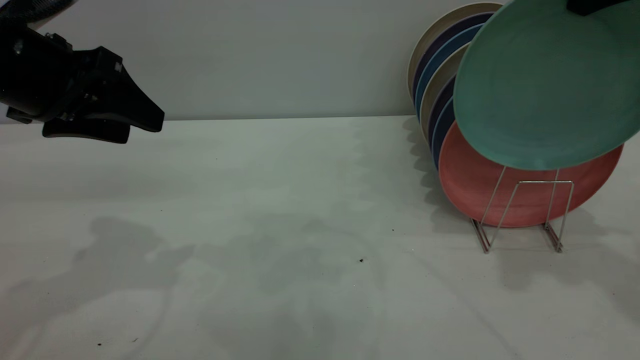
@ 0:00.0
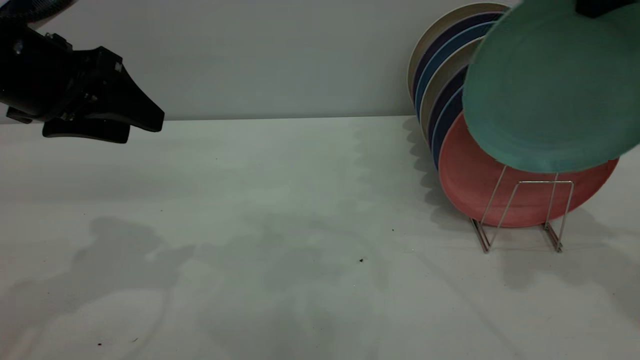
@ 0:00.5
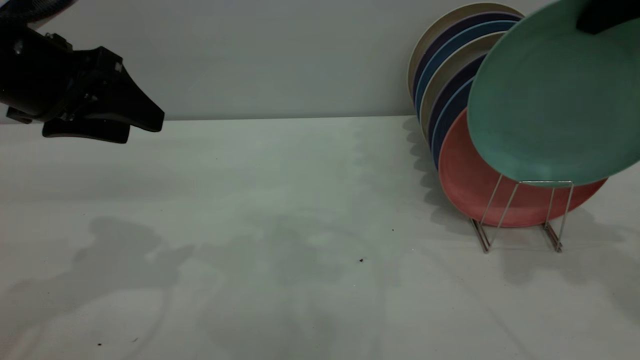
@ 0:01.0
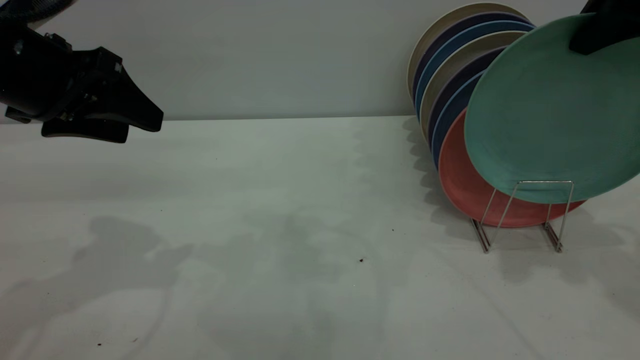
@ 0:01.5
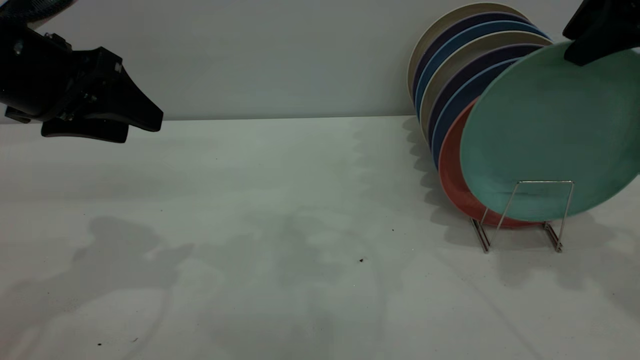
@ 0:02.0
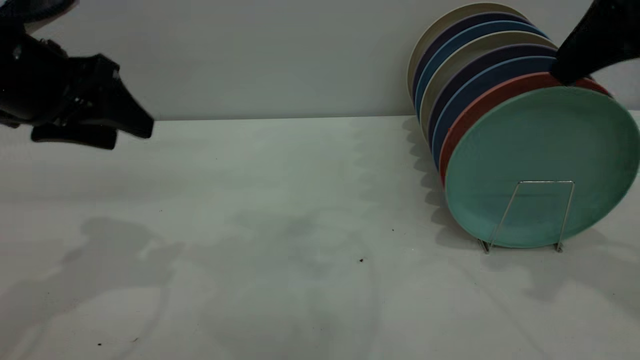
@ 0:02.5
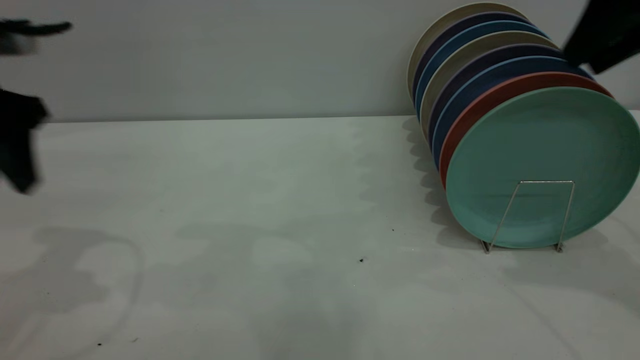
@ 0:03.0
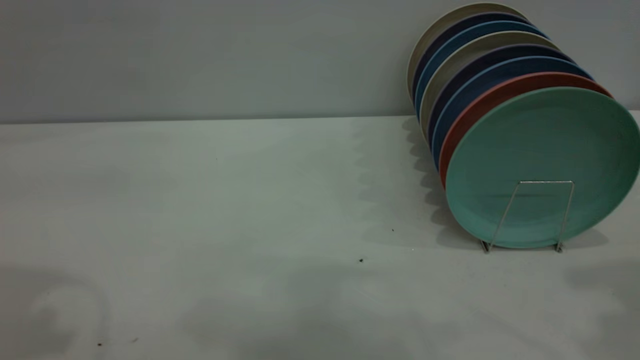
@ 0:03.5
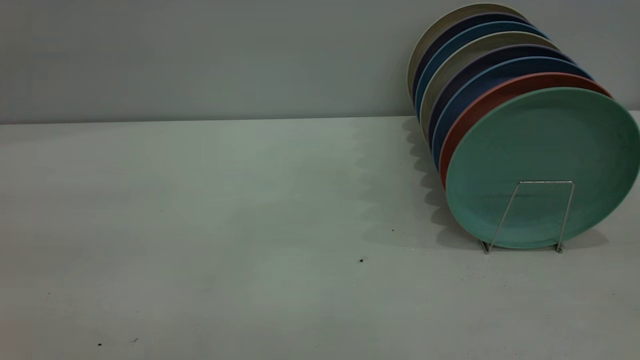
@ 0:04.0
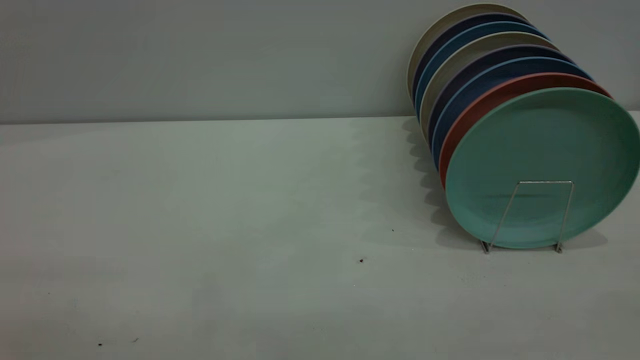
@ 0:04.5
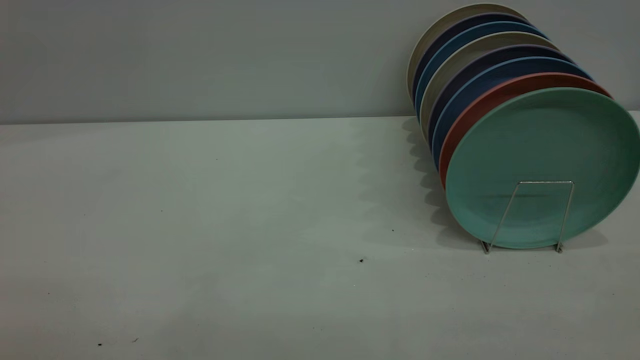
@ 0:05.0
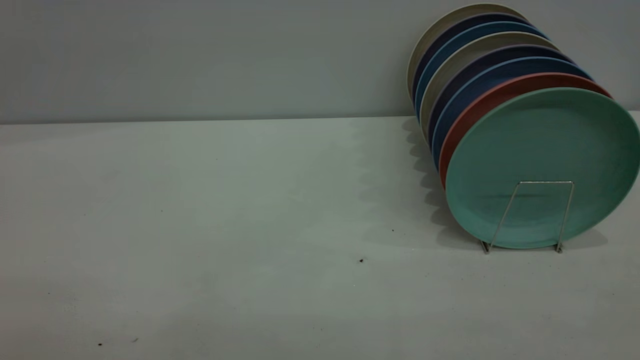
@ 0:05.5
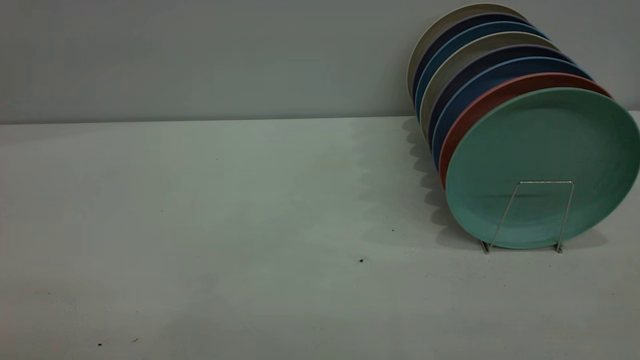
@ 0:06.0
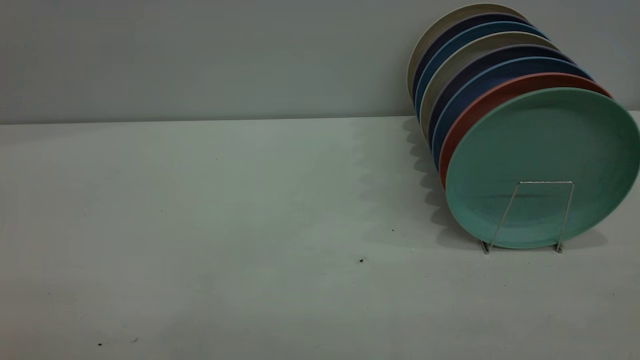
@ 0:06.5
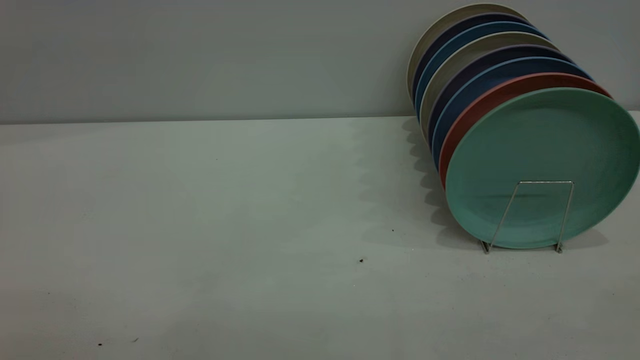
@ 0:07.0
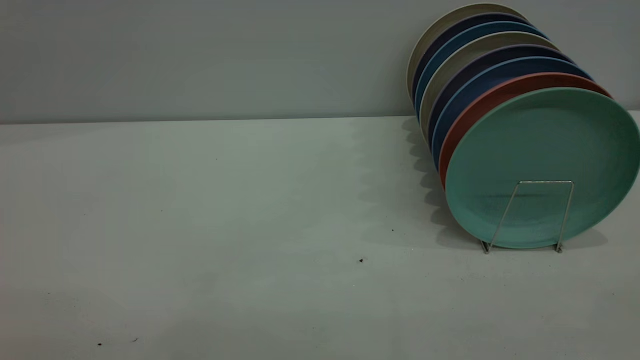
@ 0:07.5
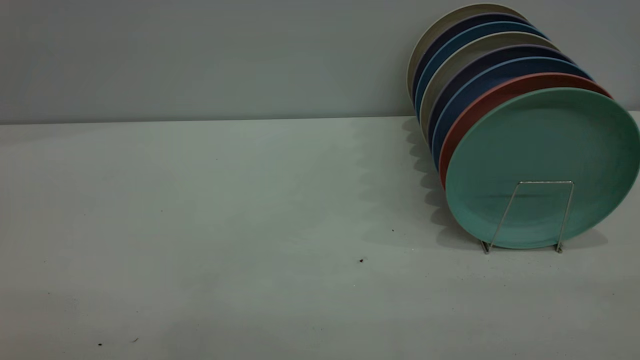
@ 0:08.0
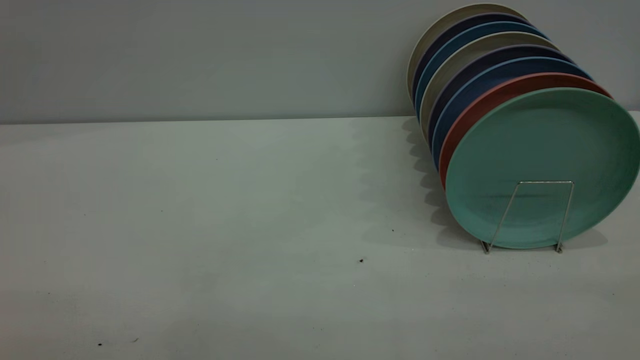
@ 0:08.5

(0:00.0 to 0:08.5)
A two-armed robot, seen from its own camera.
Task of the whole recording: the left gripper grasp the green plate, the left gripper pass the green plate to the right gripper, and the right gripper place the green plate on the plate rack.
Step, 0:00.0 - 0:03.0: Place the plate on the shelf.
0:00.0 - 0:02.0: The right gripper opens.
0:02.0 - 0:04.0: Both grippers travel together backward and upward, approximately 30 cm. The right gripper opens.
